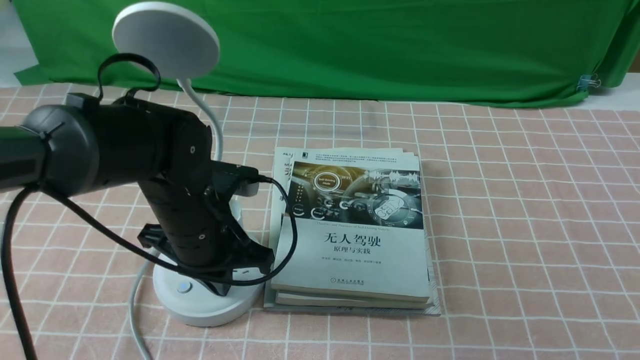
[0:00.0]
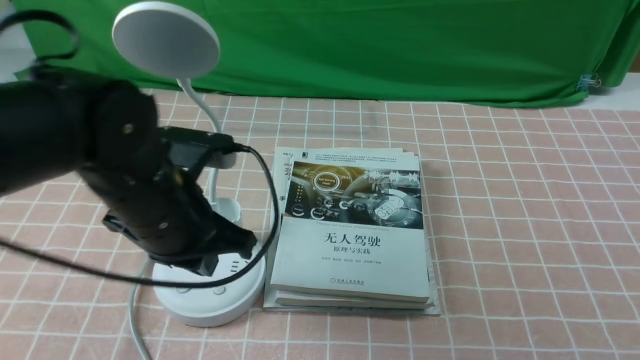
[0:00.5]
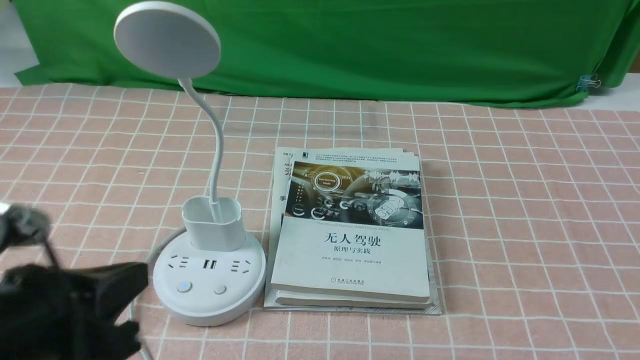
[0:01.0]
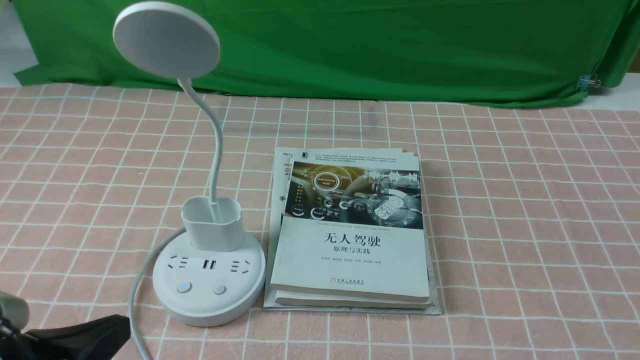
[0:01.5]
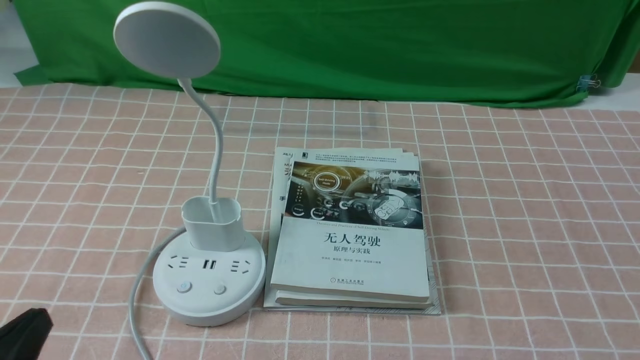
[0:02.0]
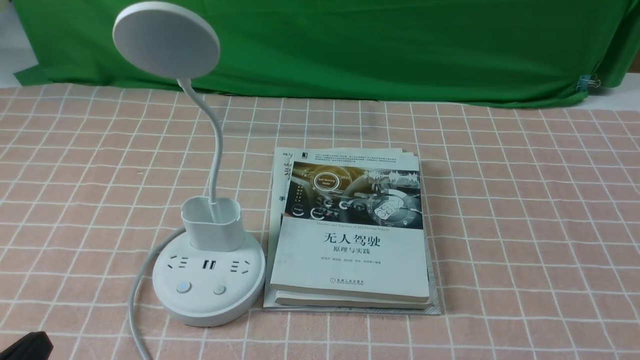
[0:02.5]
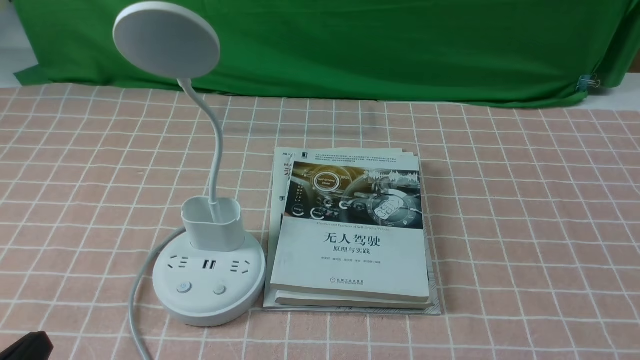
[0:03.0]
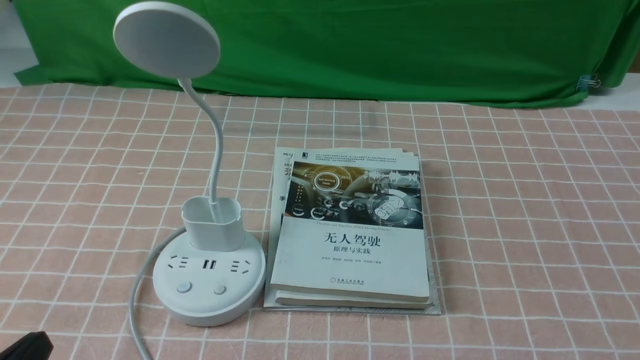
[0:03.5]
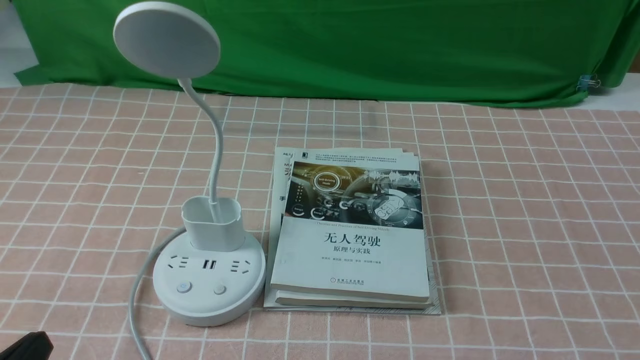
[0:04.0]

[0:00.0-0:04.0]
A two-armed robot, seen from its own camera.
Task of the whole recording: turn off the table lamp on the pink coffee tablecloth by hand.
0:00.0 to 0:02.0: The left gripper goes approximately 25 cm backward and to the left.
